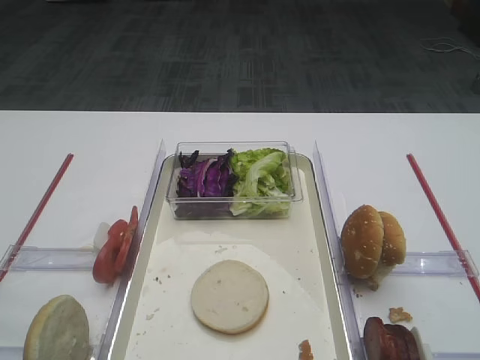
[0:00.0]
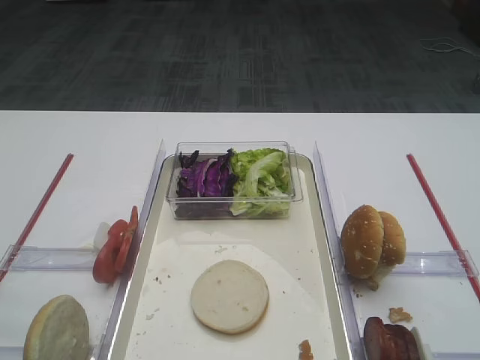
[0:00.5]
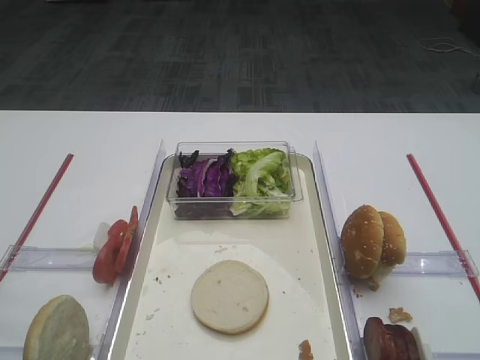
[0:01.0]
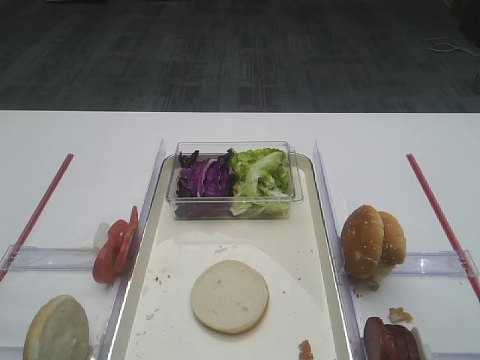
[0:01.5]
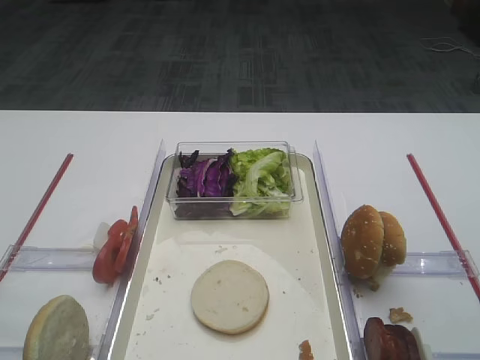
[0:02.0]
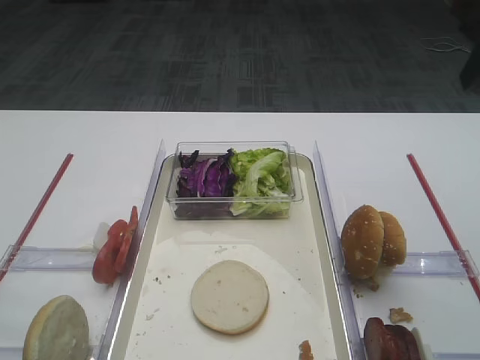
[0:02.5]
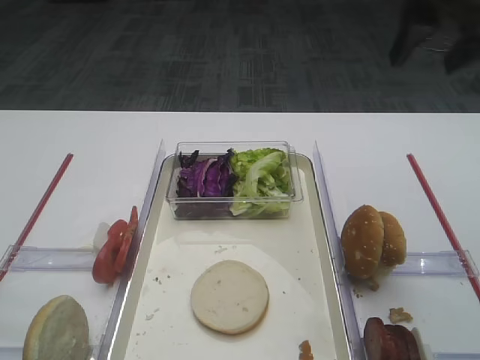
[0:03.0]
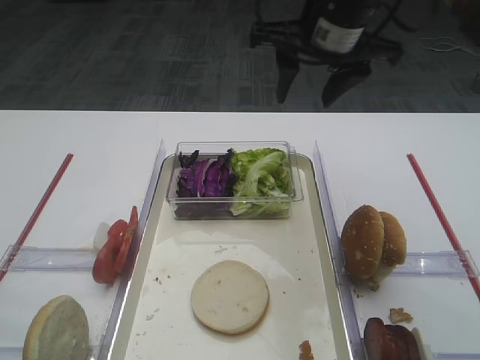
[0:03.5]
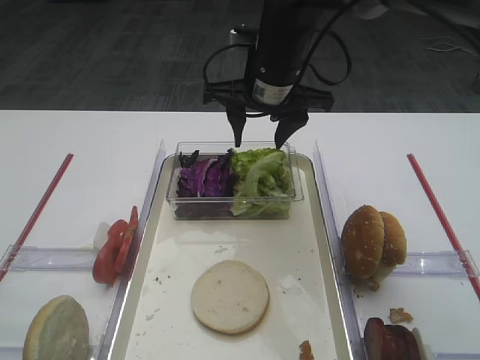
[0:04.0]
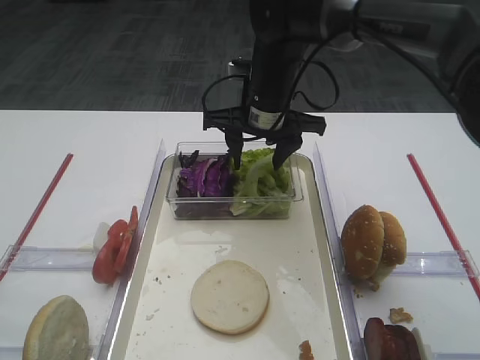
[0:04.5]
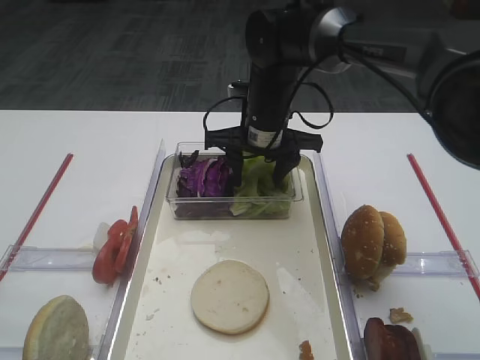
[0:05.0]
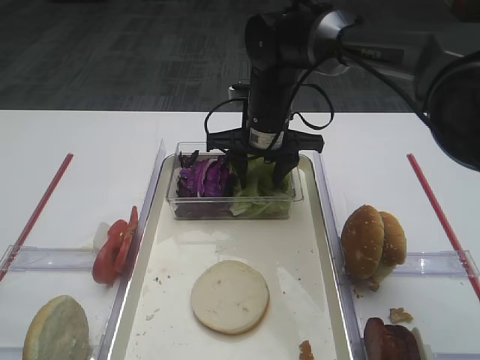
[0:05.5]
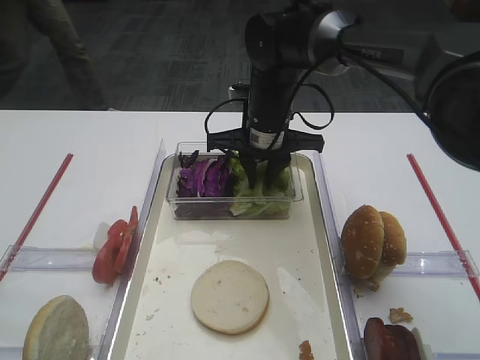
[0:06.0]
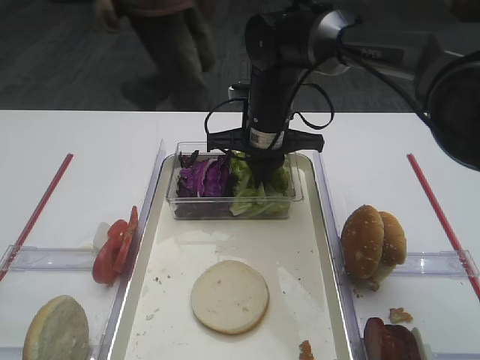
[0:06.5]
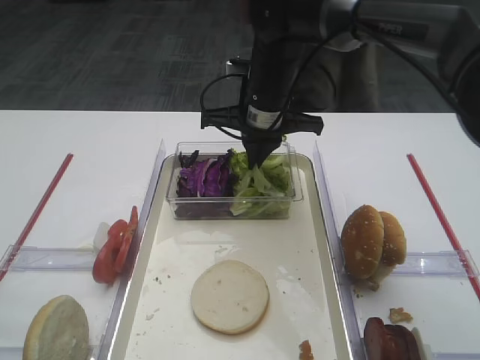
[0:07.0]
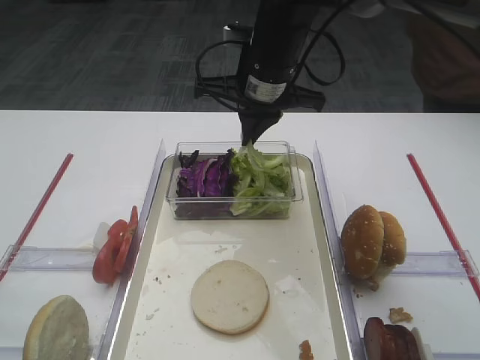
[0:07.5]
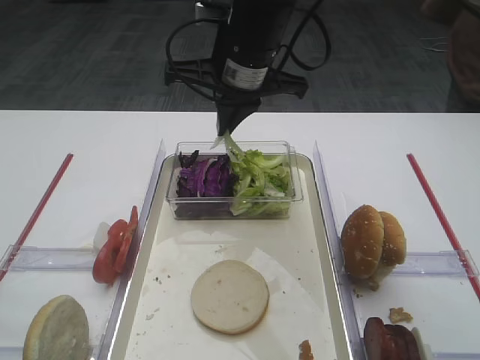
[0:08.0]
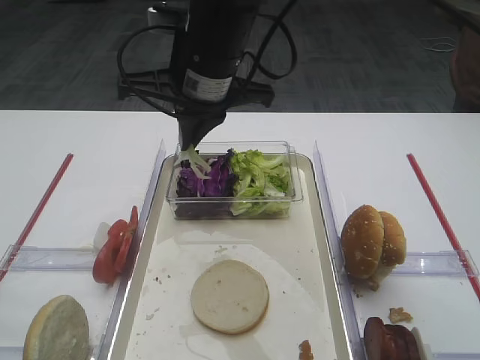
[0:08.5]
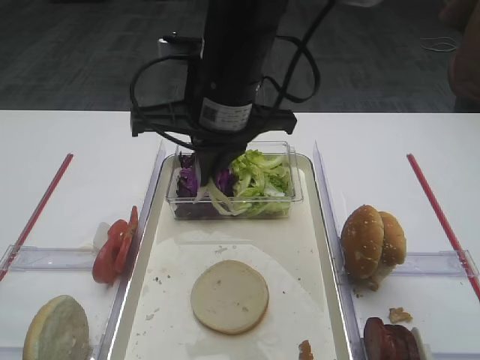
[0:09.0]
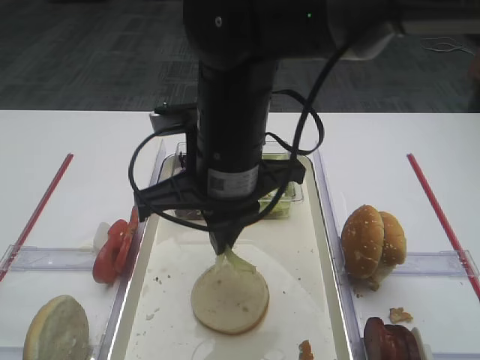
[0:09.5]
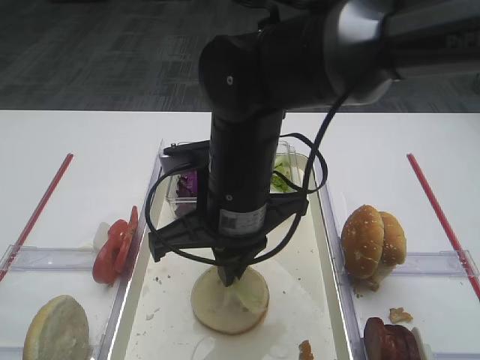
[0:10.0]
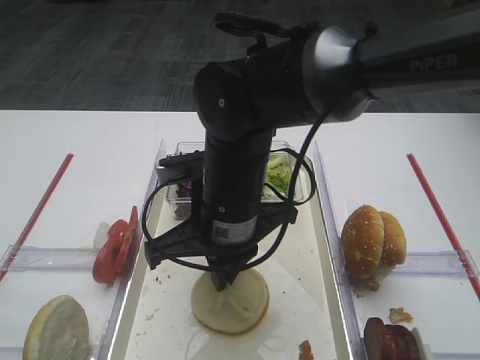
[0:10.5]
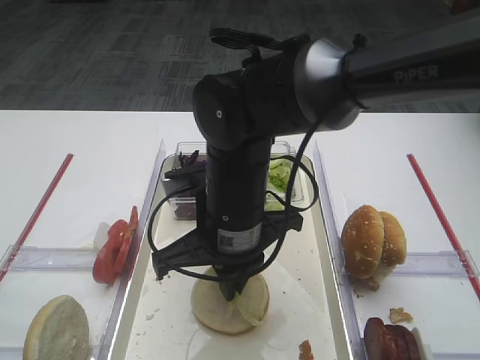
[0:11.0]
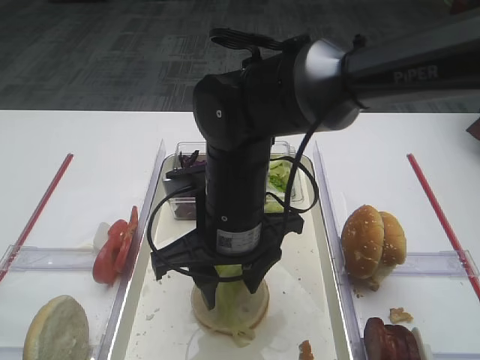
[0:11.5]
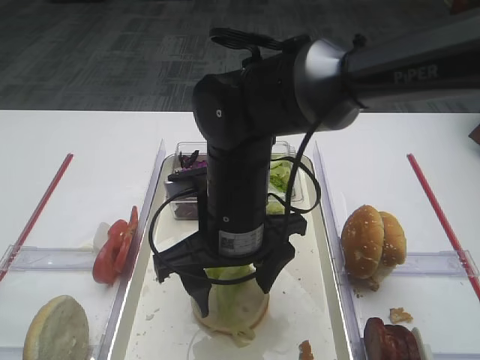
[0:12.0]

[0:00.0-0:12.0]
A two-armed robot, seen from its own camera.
Step, 0:00.0 to 0:07.0: Pick up the lettuce leaf with the right gripper.
Step, 0:07.5 to 0:11.5: Place the lettuce leaf on the bread slice with the right gripper.
0:02.0 to 0:04.0: The right gripper shifts roughly 30 cm forward, to the left and downward.
0:04.0 to 0:06.0: The right gripper travels downward by approximately 10 cm, and closes up.
0:06.0 to 0:08.0: The right gripper goes approximately 10 cm upward, and closes up.
0:08.0 to 0:10.0: The right gripper travels backward and downward by about 15 cm.
0:10.0 to 0:12.0: The right gripper opens.

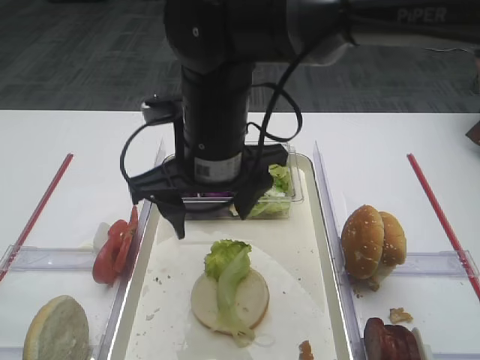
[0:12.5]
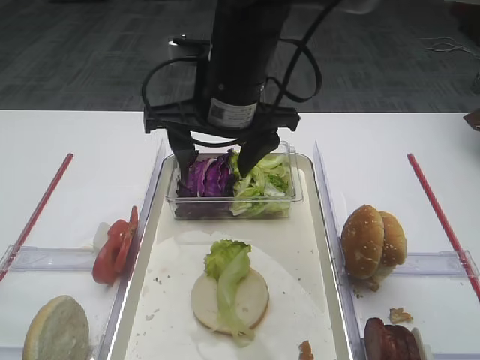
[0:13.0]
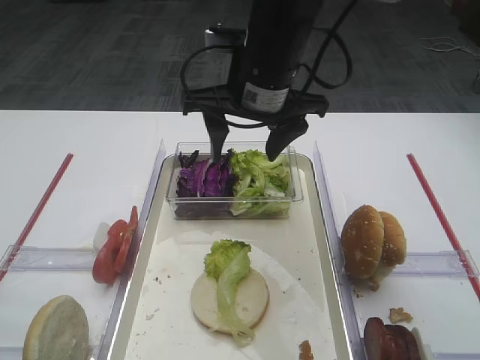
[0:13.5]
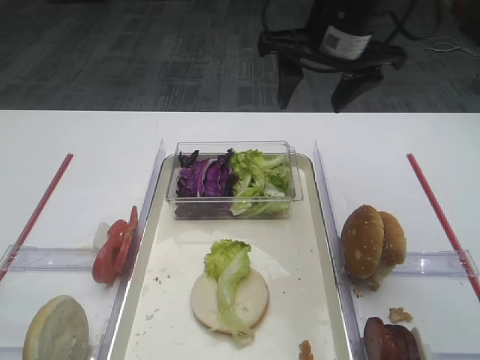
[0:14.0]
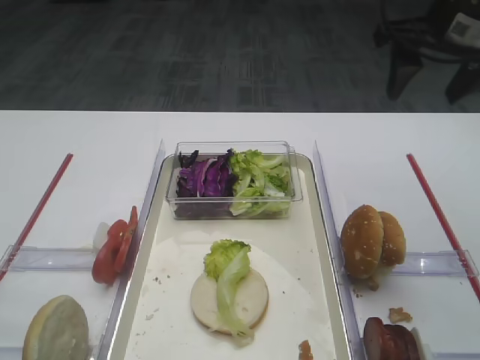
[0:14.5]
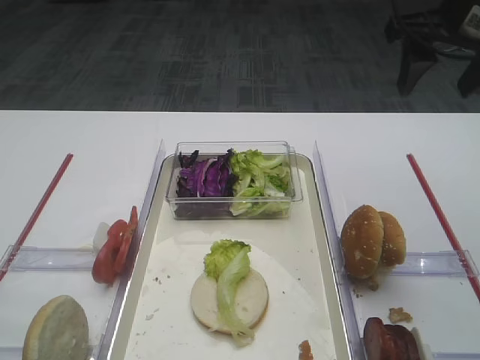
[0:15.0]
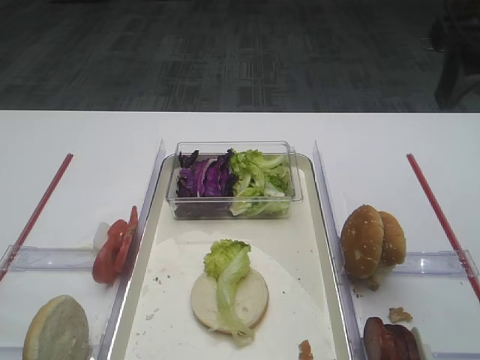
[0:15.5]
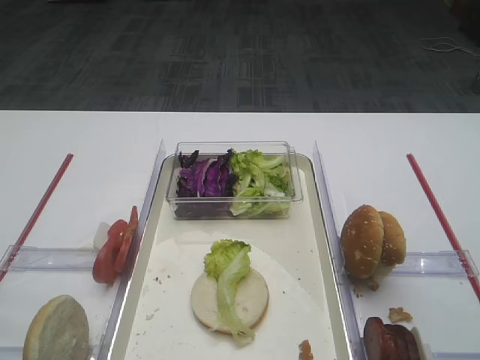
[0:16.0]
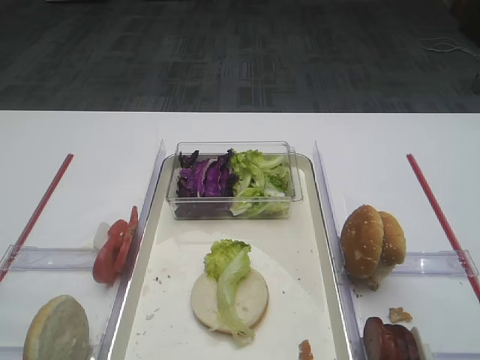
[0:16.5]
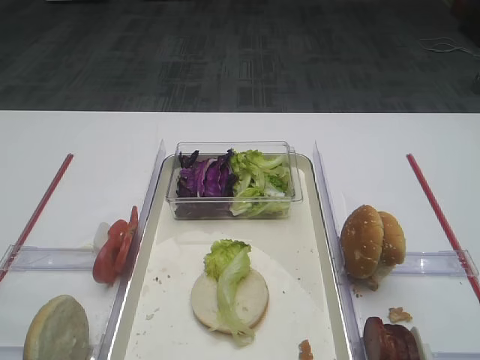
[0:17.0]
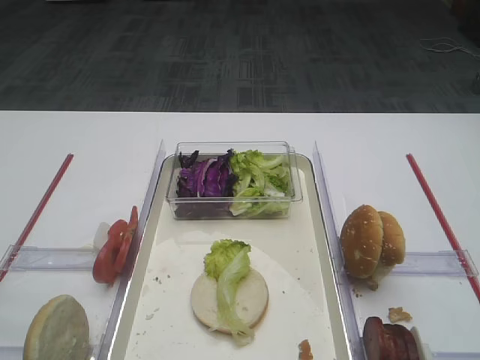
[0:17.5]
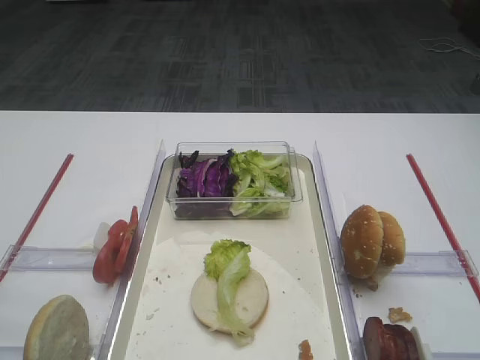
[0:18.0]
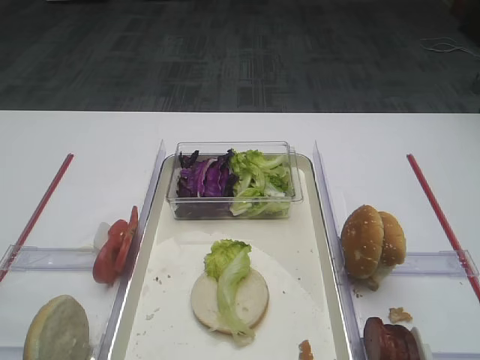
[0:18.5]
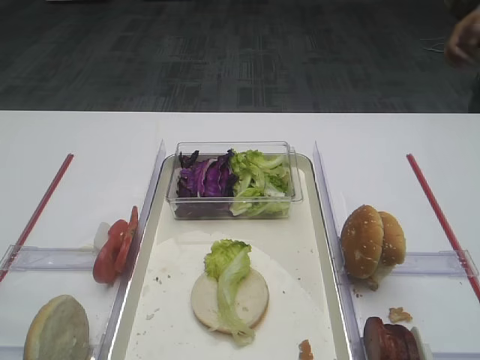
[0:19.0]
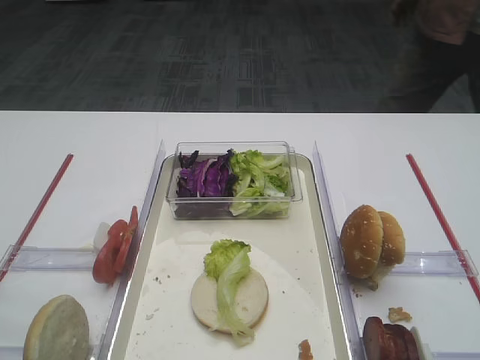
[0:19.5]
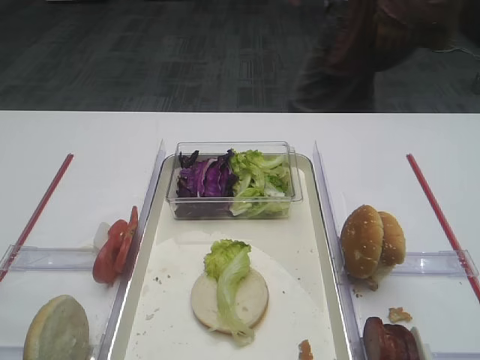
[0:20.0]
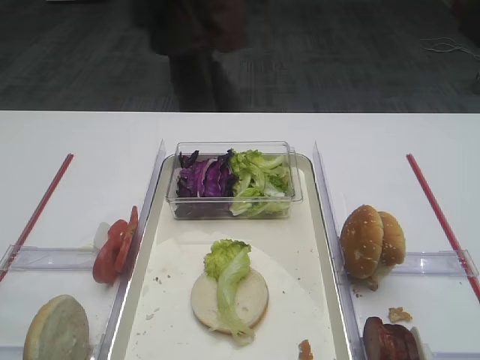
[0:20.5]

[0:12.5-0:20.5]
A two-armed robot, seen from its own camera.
0:12.5 to 0:14.5: The right gripper goes some 25 cm to the right.
0:14.5 to 0:16.5: The right gripper heads backward, covering roughly 30 cm.
0:18.5 to 0:20.5: The grippers make only small movements.
